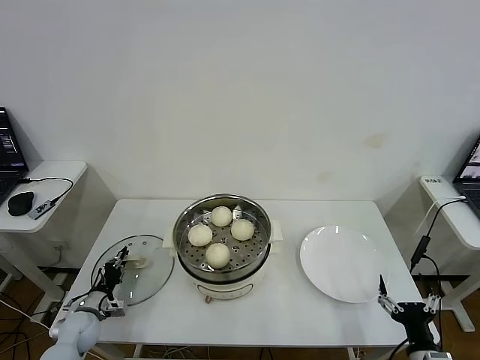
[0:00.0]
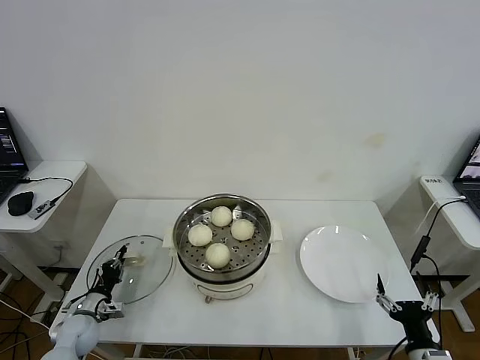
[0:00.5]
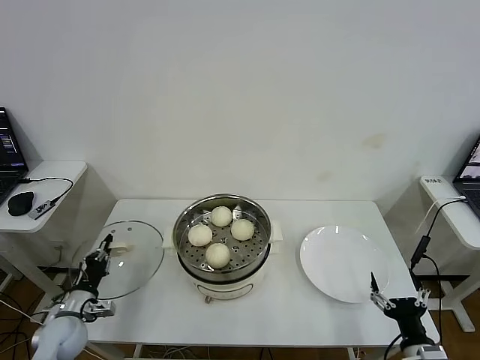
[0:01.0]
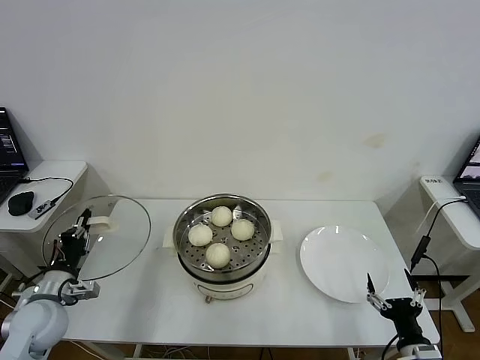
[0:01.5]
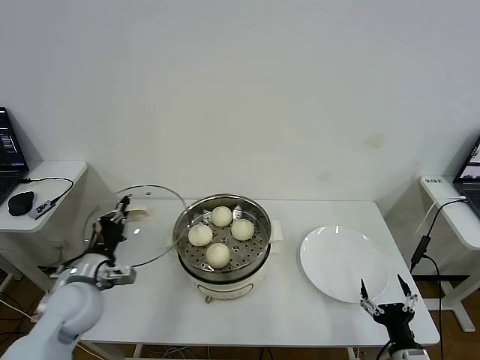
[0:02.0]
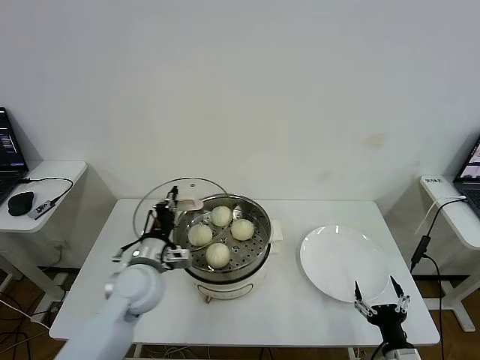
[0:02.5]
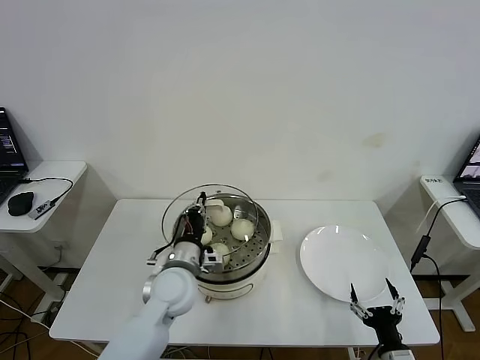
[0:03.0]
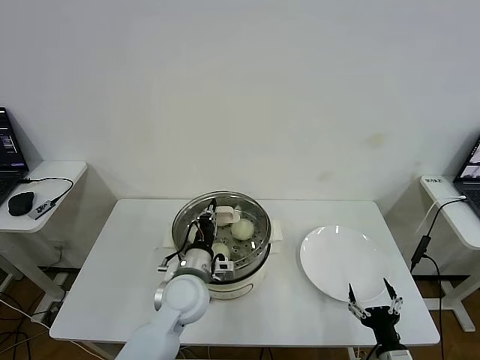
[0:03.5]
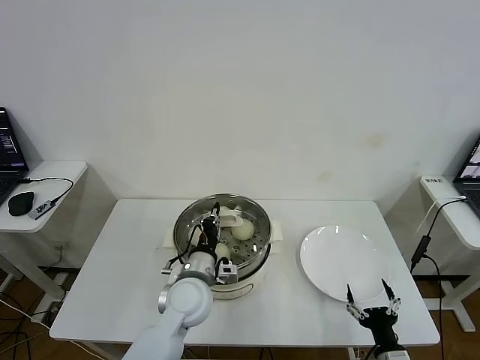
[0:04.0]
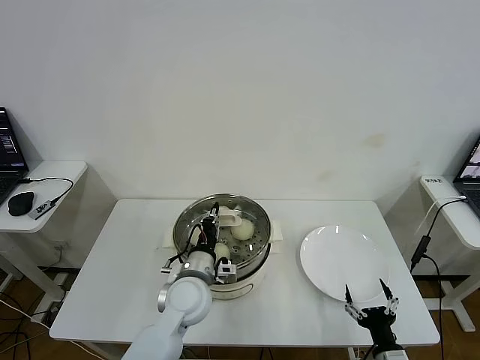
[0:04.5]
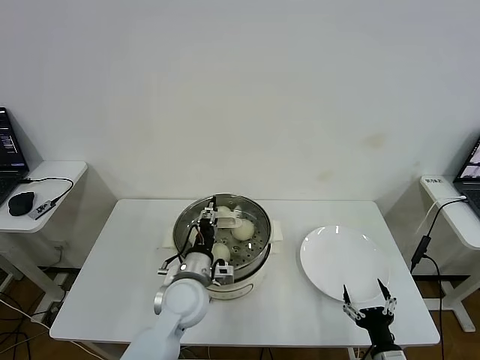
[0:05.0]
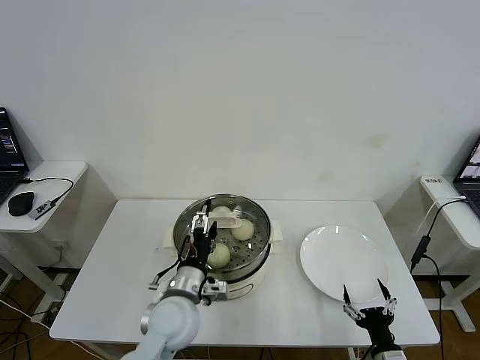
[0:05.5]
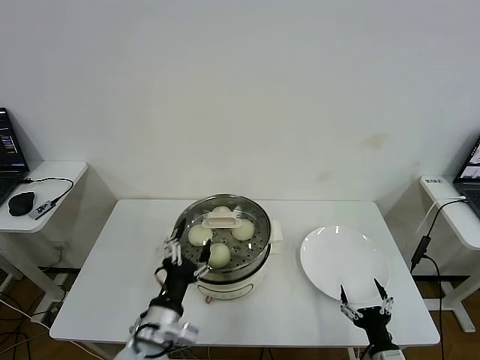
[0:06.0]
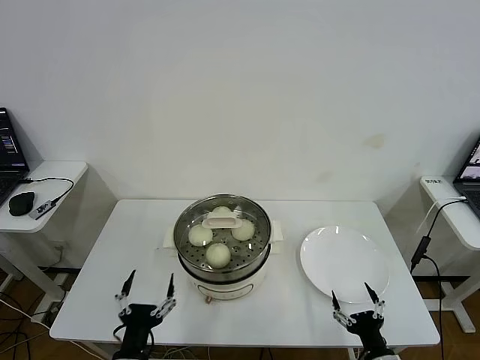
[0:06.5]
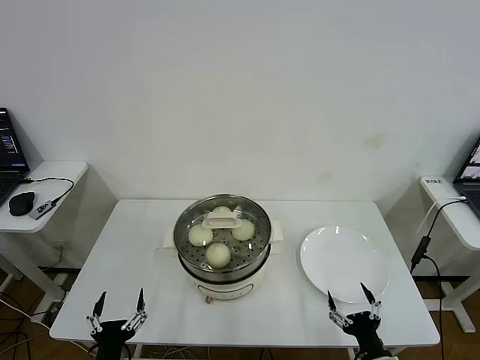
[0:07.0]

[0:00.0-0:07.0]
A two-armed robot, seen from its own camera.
Task of the whole recording: take steamed baozi put them in steamer then cover it.
Step, 0:00.5 to 0:05.0: Place the pot lid on the steamer with left gripper.
0:00.0 to 0:02.0: The left gripper goes some 20 cm upward and to the right.
0:02.0 to 0:03.5: The left gripper goes approximately 20 cm to the right.
0:03.5 to 0:05.0: The left gripper opens its fingers.
0:05.0 to 0:07.0: The left gripper moves backward, to the left and downward, about 30 cm, and opens its fingers.
